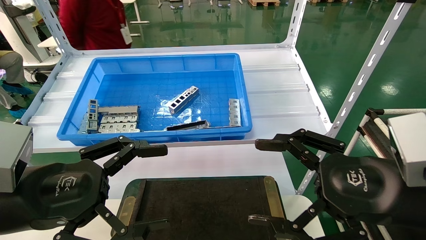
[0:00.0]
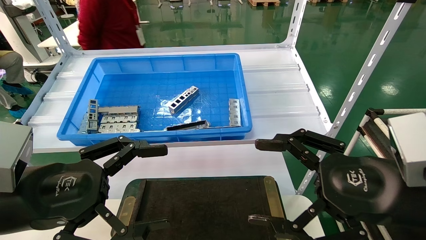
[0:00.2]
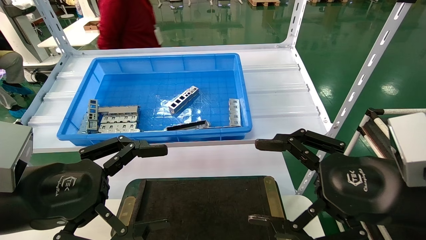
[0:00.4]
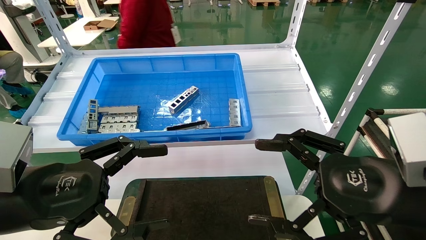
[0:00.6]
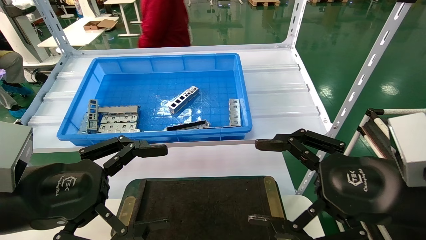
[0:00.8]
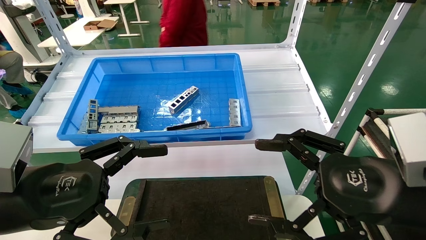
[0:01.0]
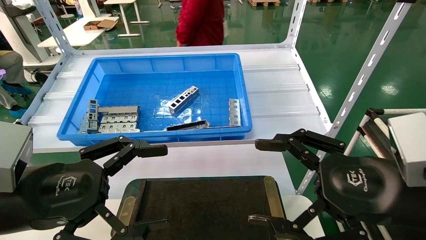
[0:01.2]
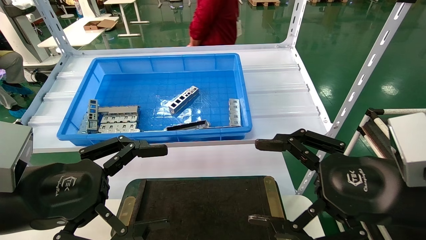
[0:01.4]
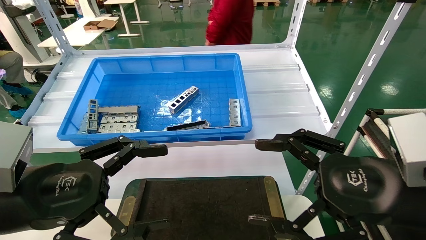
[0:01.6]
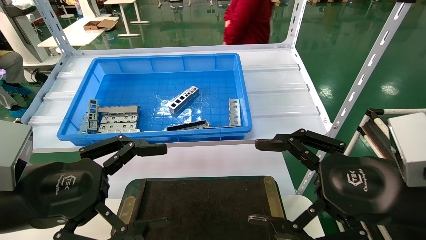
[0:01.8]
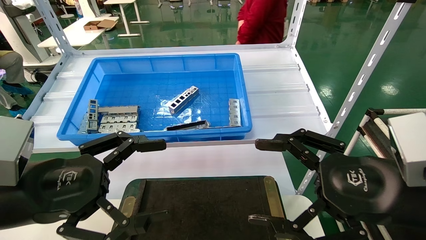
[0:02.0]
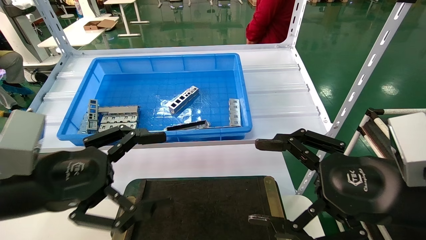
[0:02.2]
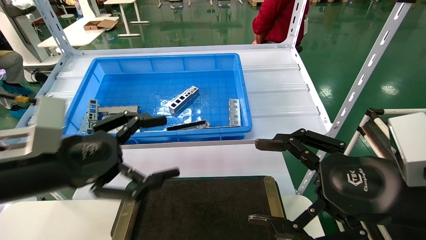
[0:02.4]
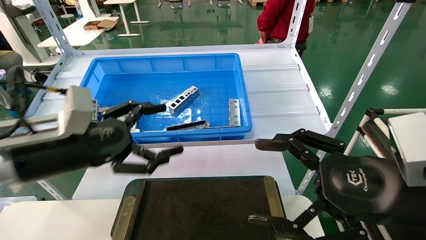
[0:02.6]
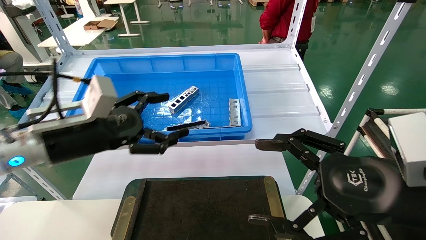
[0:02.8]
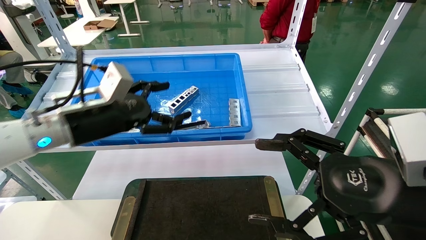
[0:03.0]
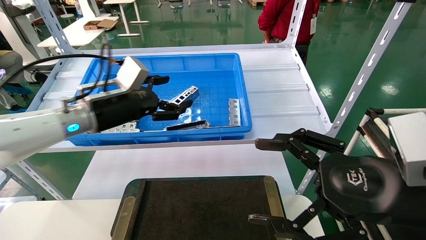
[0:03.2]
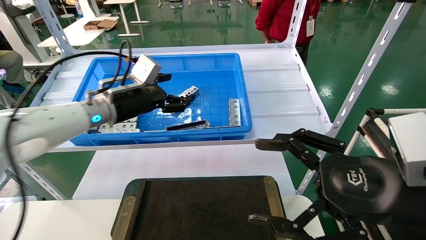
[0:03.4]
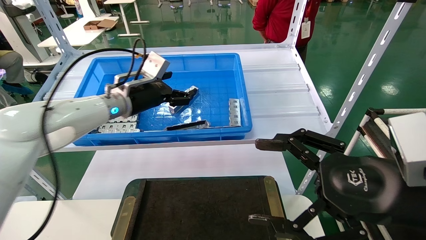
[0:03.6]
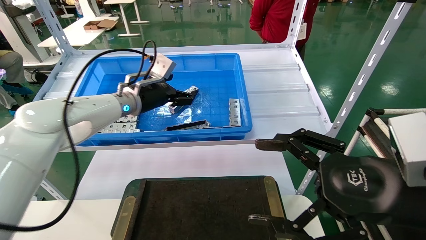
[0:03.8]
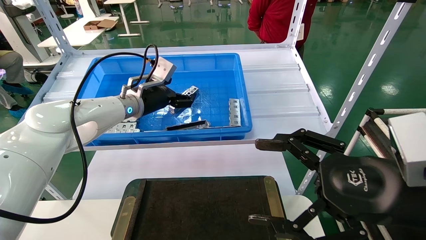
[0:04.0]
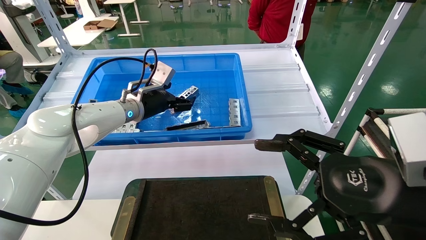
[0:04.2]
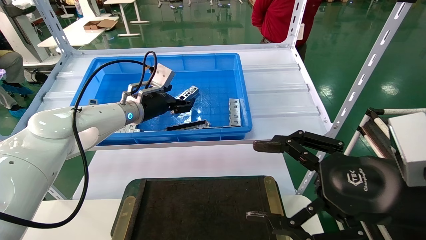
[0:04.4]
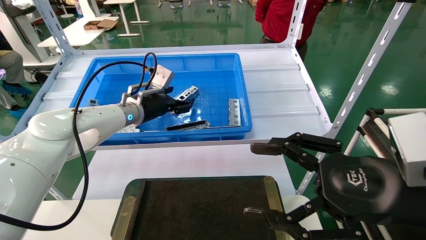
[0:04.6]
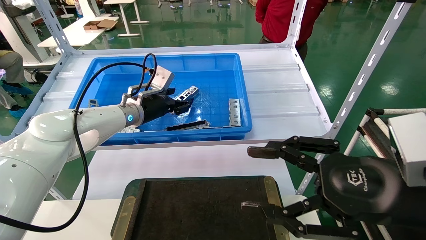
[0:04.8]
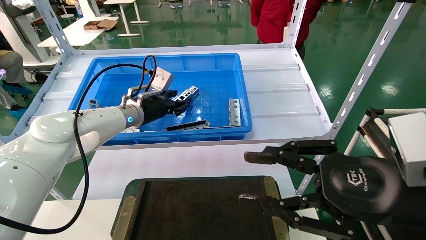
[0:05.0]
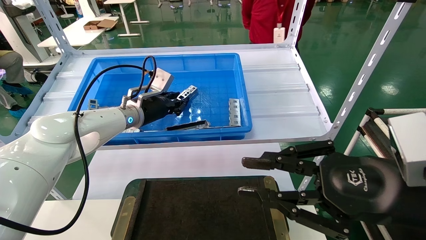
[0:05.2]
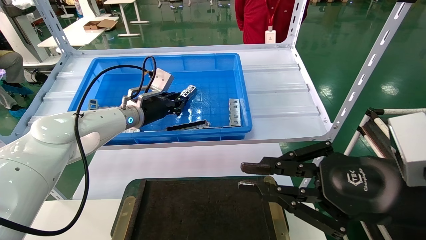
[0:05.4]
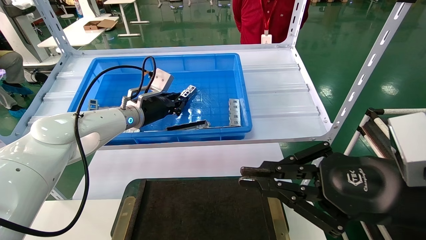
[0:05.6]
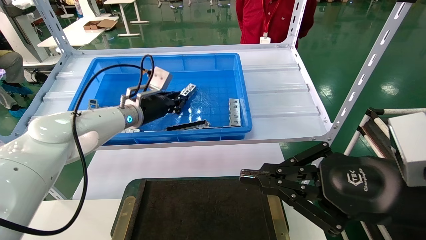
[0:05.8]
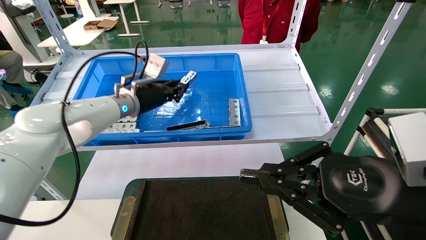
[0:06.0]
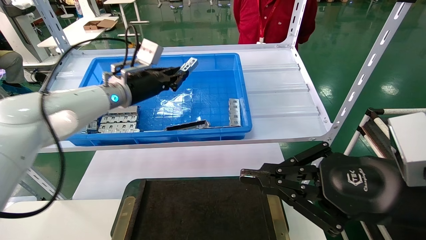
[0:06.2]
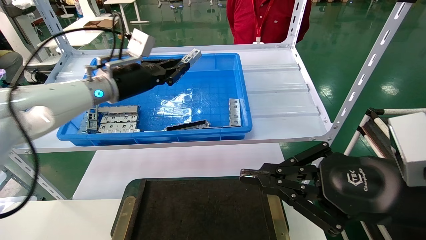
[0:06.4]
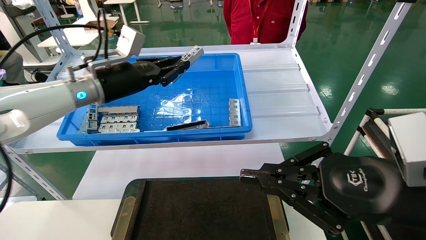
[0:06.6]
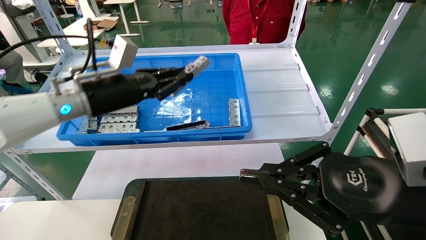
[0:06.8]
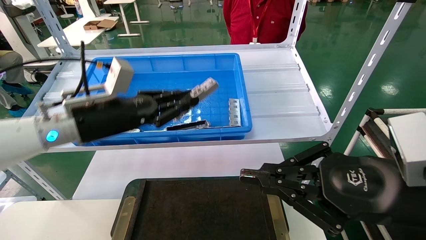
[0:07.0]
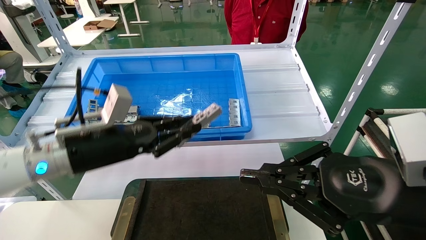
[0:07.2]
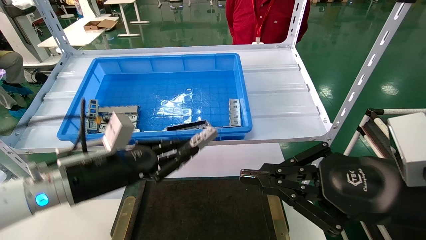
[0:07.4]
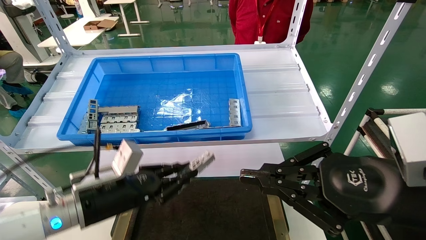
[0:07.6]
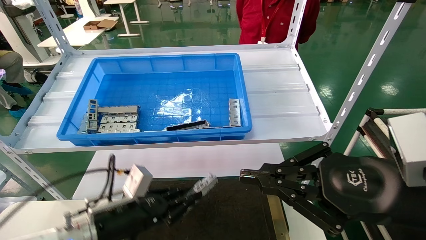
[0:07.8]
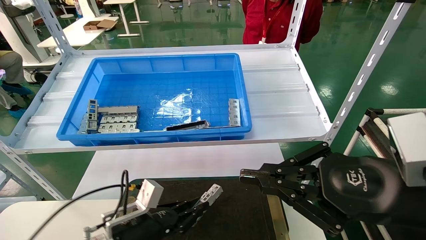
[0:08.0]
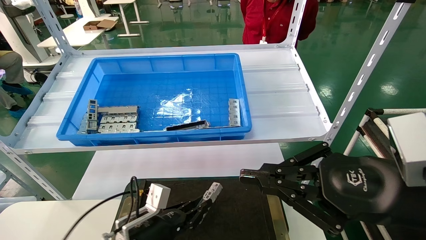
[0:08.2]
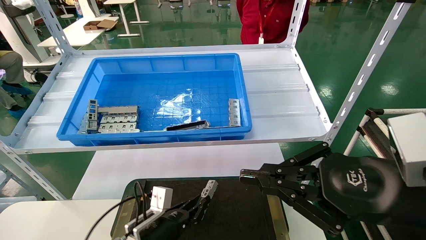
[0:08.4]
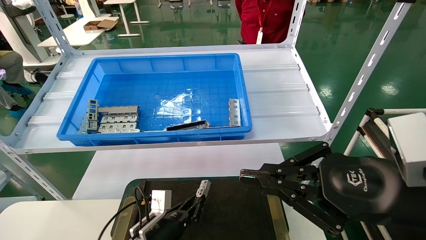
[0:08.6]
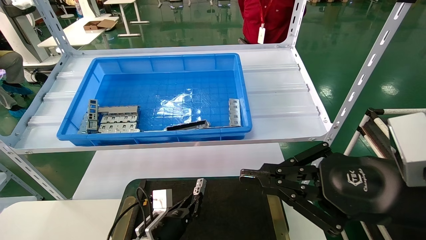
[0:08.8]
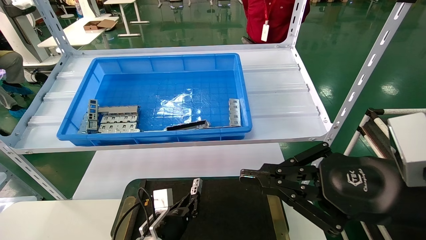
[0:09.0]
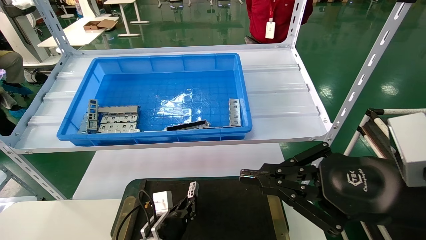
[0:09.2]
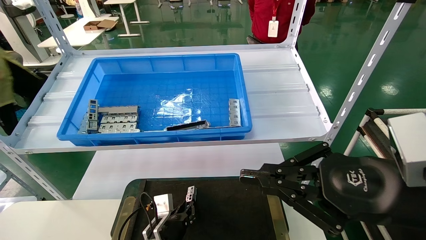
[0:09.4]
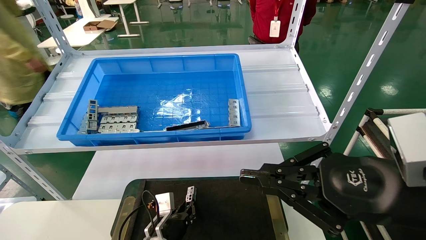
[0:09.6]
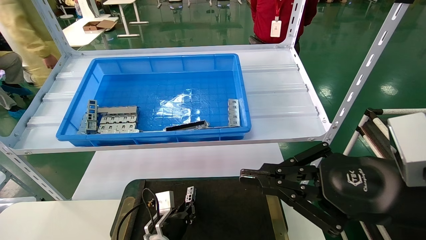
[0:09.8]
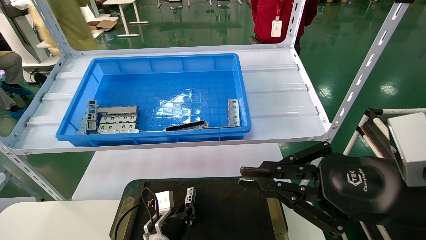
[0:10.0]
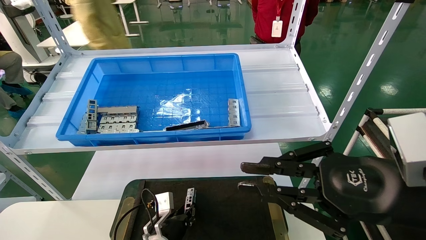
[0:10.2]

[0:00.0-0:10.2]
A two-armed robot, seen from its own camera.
Task of the whole recording: Grasp the part with one hand and place it on the black container.
Step, 0:02.2 to 0:06.2: Pick up the front USB bracket from the feeding area.
0:00.0 to 0:01.4: Both grippers stay about where they are.
0:01.4 to 0:03.0: The left gripper is displaced forward by approximately 15 cm.
0:03.0 to 0:04.4: The left gripper travels forward by some 15 cm.
0:04.4 to 0:05.8: The right gripper closes up. The left gripper closes its fingers.
0:05.8 to 0:07.2: The left gripper goes roughly 15 cm backward.
0:07.2 to 0:08.8: The left gripper shifts approximately 25 cm downward.
0:08.8 to 0:10.2: The grippers move only a little.

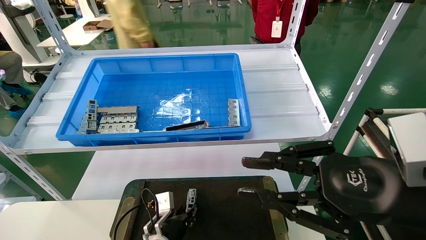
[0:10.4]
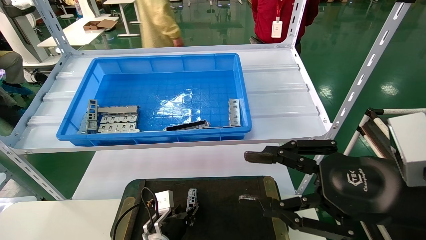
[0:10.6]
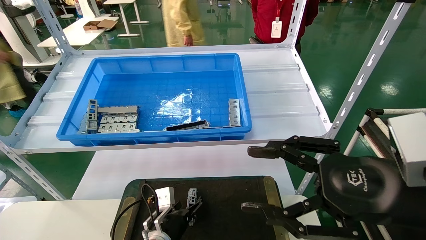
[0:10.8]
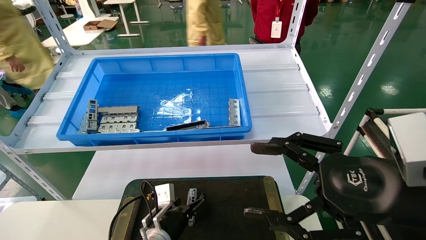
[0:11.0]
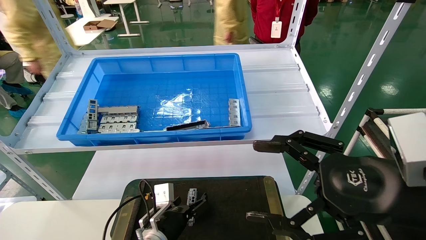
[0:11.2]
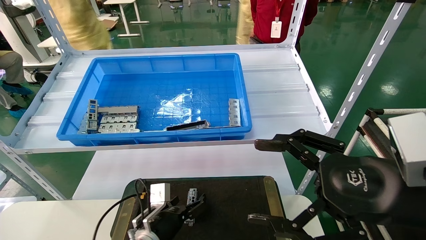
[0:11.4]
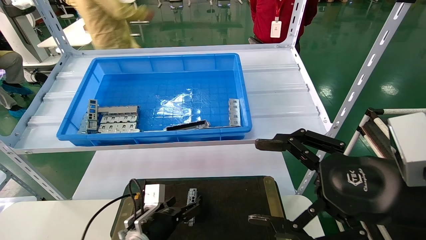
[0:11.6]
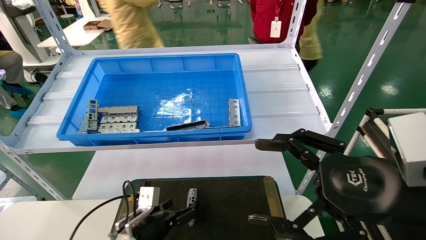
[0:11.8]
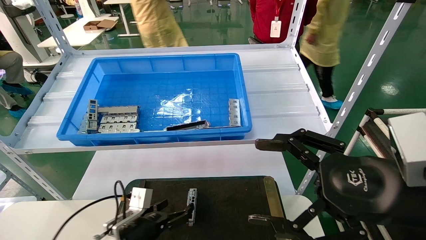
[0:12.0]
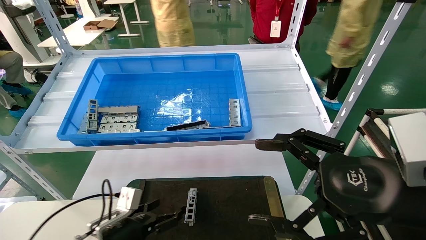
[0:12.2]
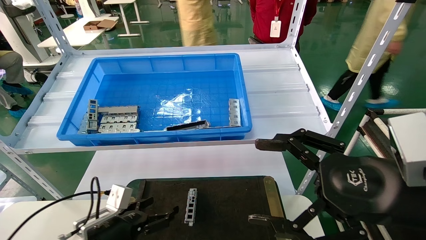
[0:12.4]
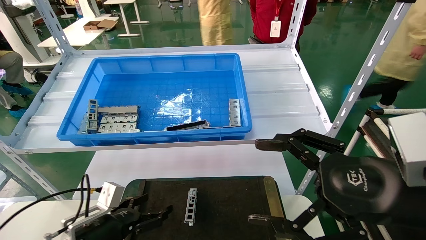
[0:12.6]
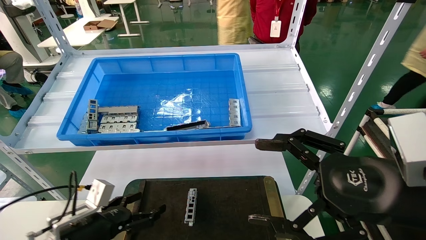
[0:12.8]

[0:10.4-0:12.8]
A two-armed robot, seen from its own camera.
Task of the whole recording: Grasp the part with one hand and place it on the black container.
0:10.4 to 0:11.6: The left gripper ends up about 5 cm from where it was, and opens, while the right gripper opens its fingers.
0:11.6 to 0:12.8: The left gripper moves to the left, upward and backward, roughly 15 cm.

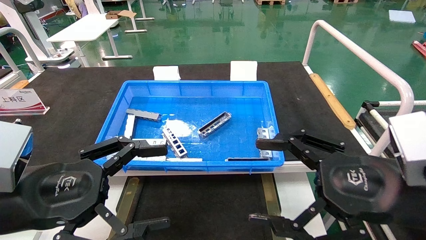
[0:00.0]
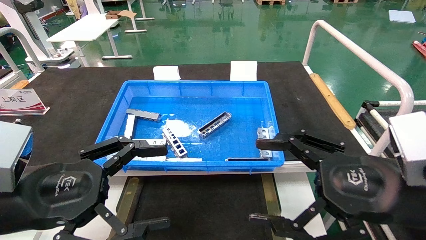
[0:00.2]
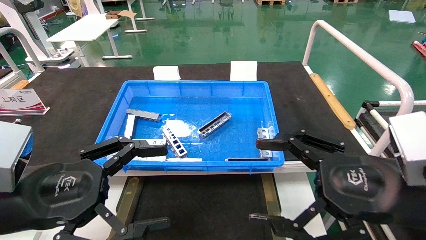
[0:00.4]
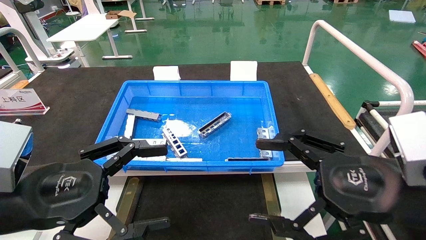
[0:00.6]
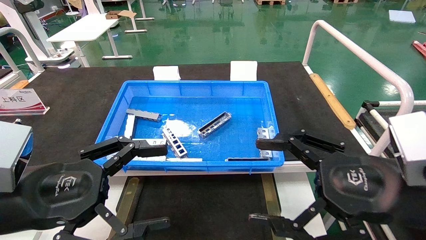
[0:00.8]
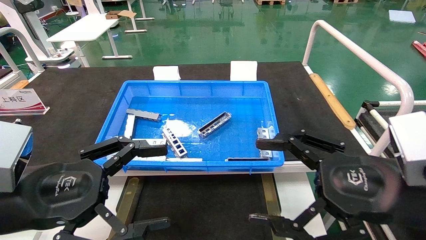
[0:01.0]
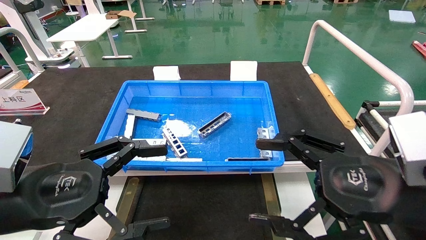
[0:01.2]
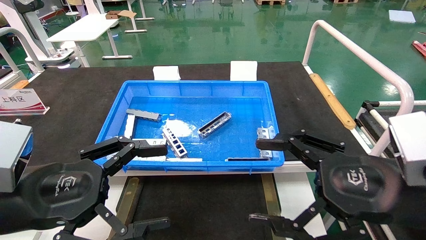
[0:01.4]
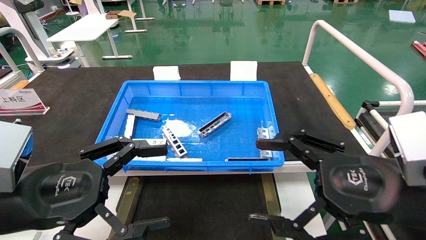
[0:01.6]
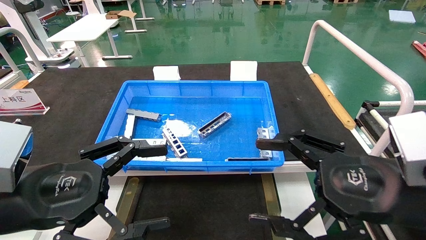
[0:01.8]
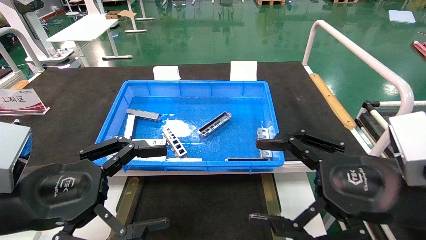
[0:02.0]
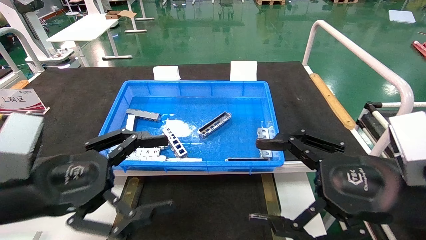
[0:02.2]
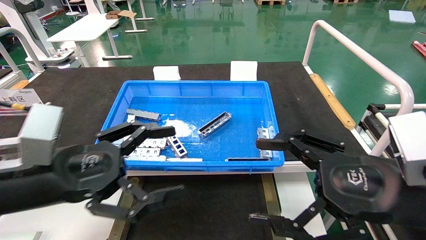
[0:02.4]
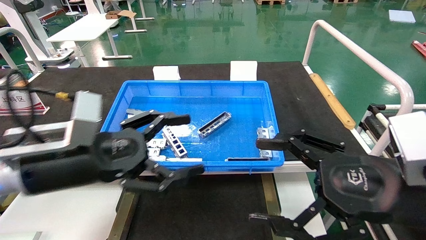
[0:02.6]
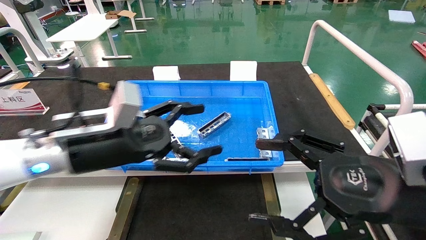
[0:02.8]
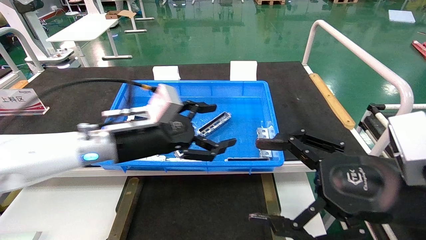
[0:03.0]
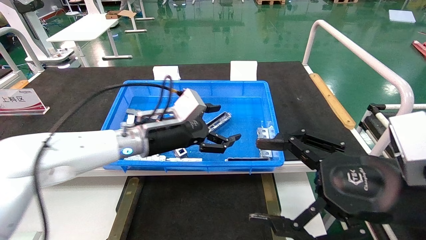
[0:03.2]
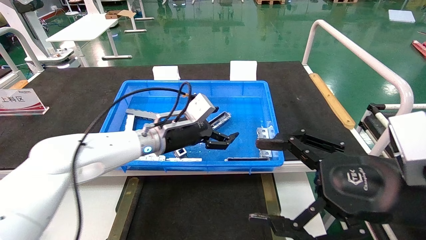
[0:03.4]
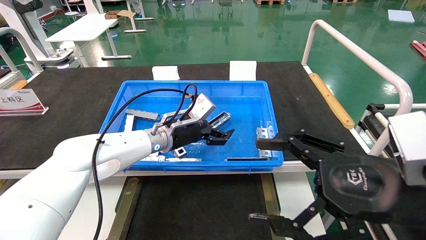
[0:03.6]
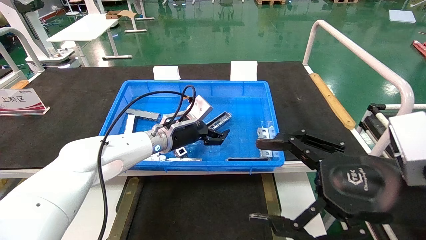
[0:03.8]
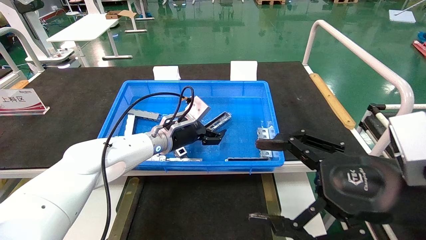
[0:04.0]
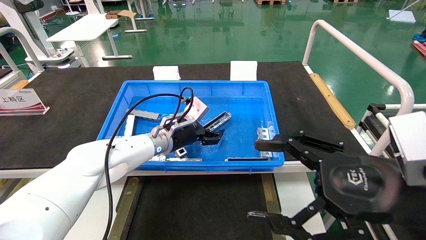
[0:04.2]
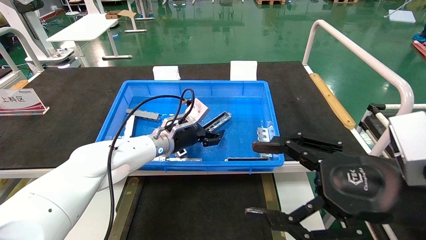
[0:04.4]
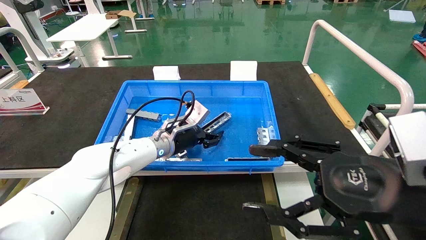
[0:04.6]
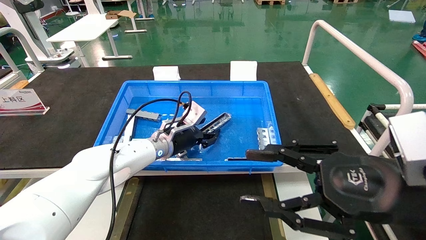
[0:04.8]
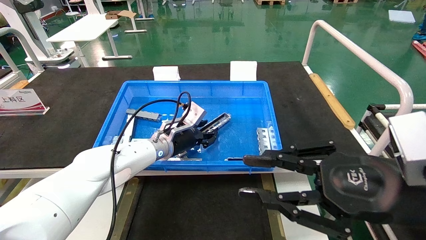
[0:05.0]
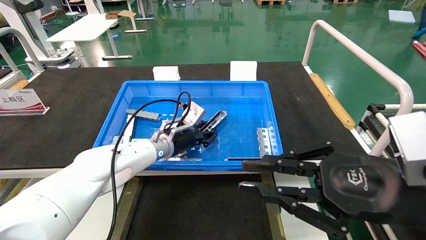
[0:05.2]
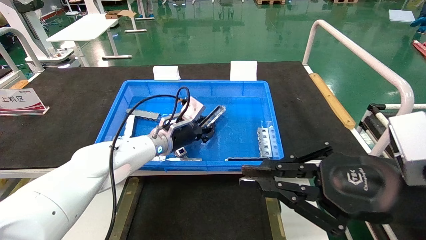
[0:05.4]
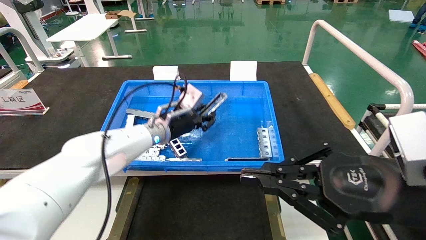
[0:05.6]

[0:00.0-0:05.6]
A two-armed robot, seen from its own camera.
Task of the whole recording: Grasp the part with one hand and place it on the black container.
0:00.0 to 0:01.4: Both grippers stay about where they are.
0:01.4 to 0:02.8: The left gripper shifts some 15 cm forward and to the right.
0:02.8 to 0:04.2: The left gripper goes some 20 cm forward and to the right.
0:04.2 to 0:05.6: The right gripper closes its fingers, while the left gripper closes its fingers.
